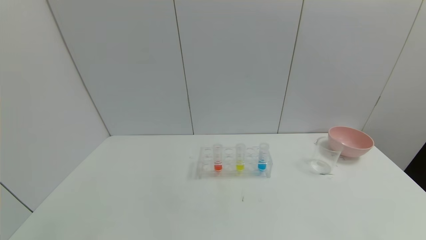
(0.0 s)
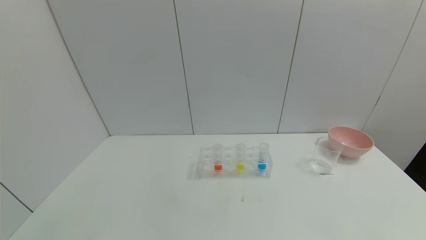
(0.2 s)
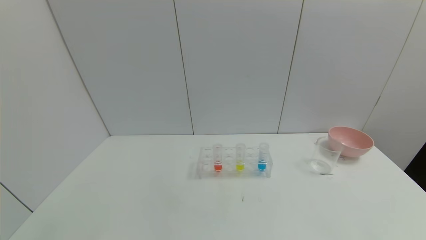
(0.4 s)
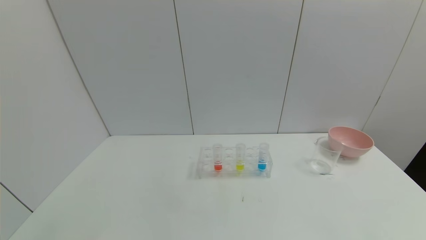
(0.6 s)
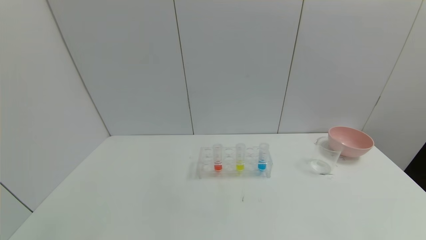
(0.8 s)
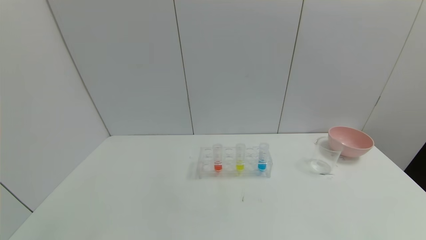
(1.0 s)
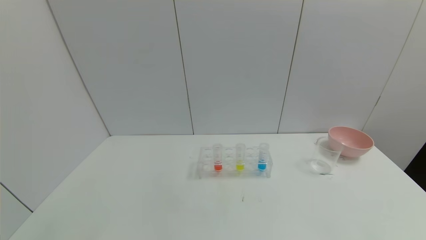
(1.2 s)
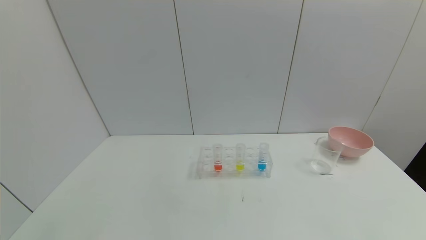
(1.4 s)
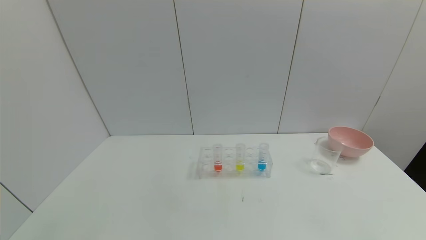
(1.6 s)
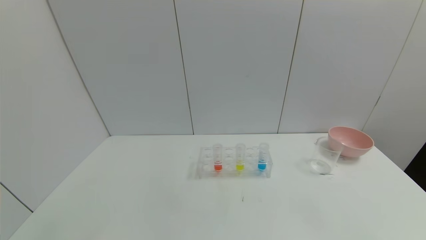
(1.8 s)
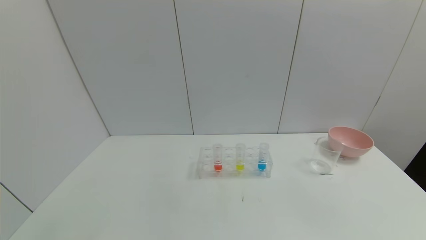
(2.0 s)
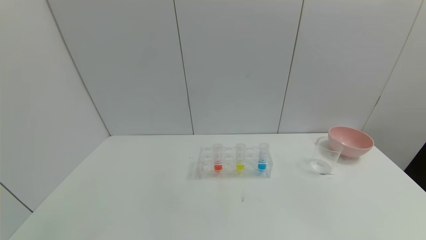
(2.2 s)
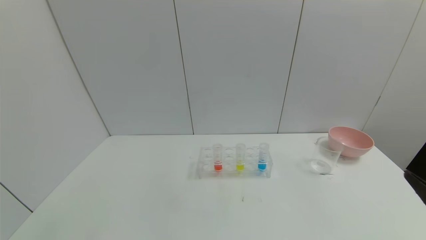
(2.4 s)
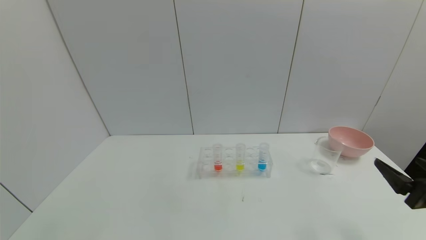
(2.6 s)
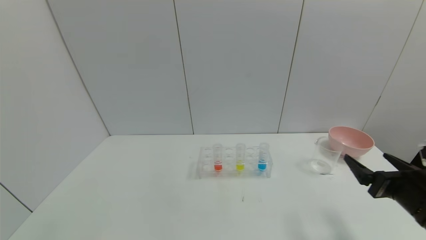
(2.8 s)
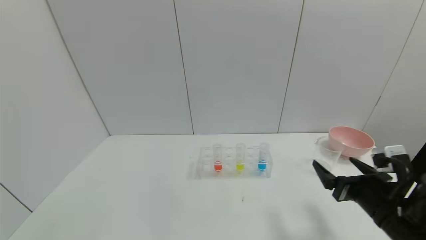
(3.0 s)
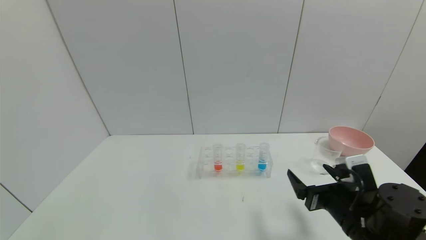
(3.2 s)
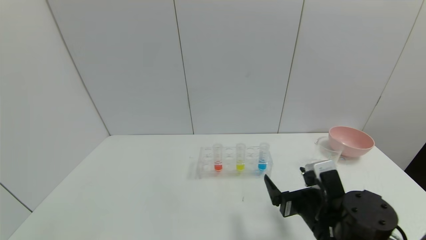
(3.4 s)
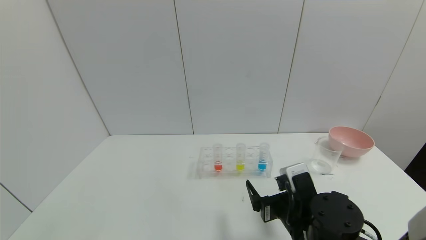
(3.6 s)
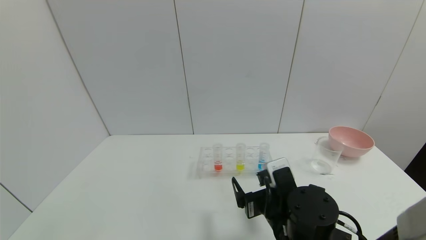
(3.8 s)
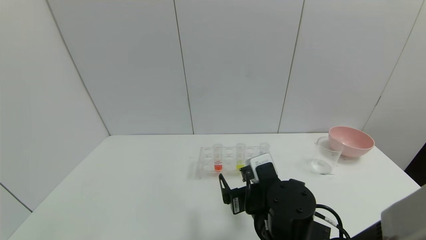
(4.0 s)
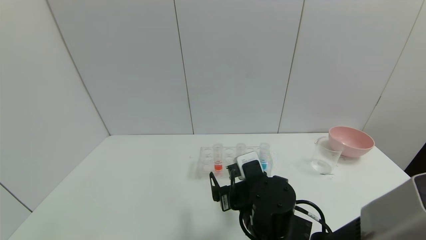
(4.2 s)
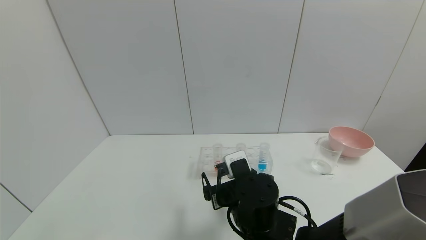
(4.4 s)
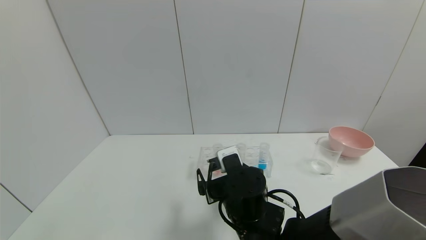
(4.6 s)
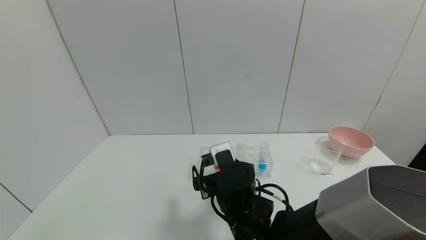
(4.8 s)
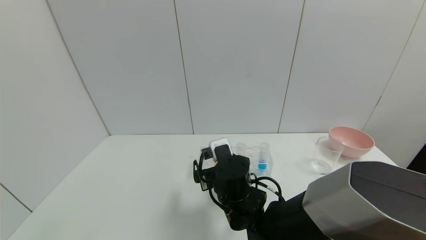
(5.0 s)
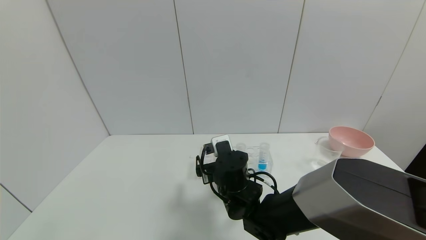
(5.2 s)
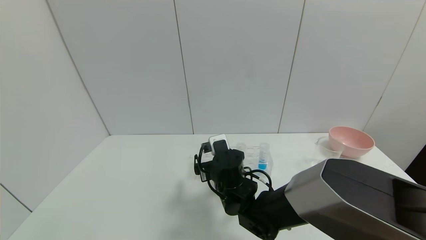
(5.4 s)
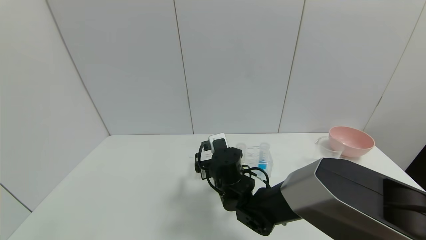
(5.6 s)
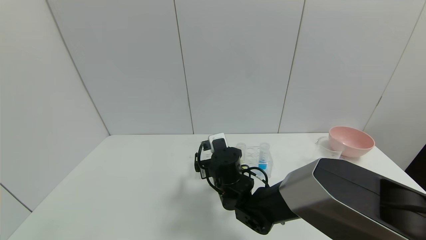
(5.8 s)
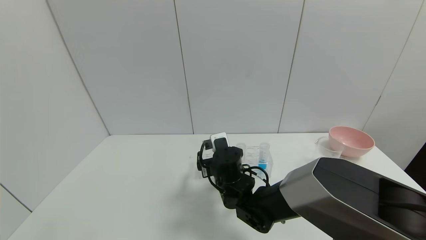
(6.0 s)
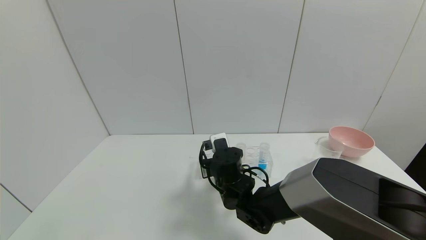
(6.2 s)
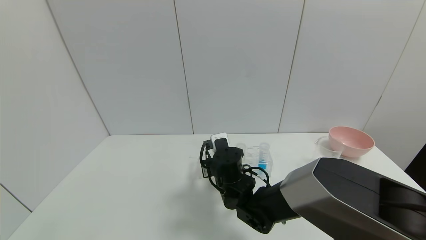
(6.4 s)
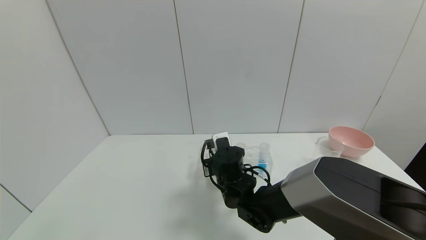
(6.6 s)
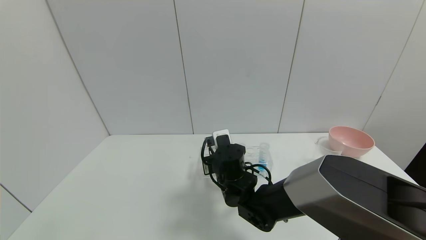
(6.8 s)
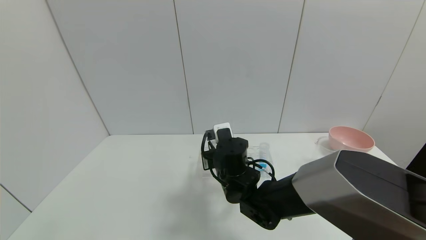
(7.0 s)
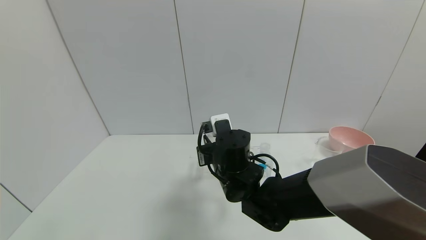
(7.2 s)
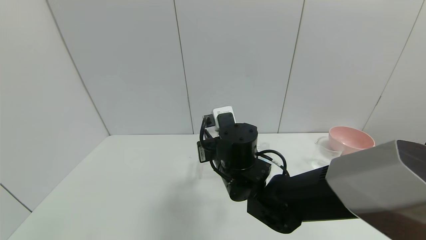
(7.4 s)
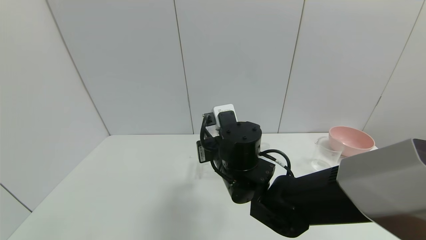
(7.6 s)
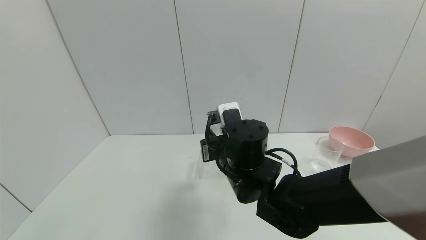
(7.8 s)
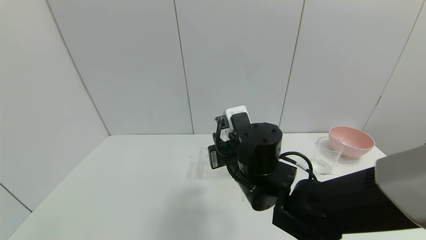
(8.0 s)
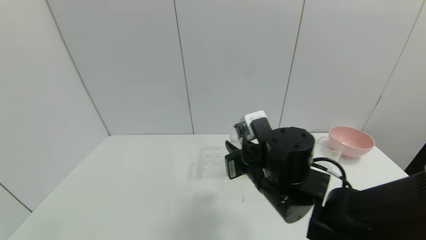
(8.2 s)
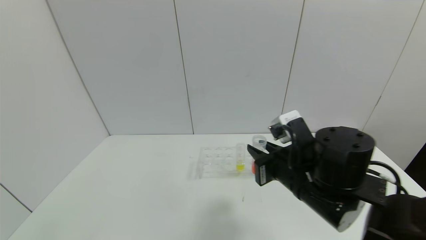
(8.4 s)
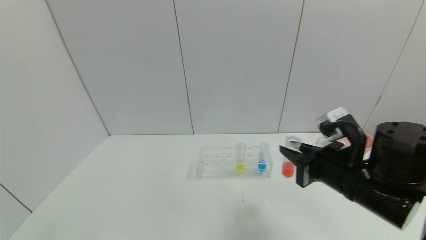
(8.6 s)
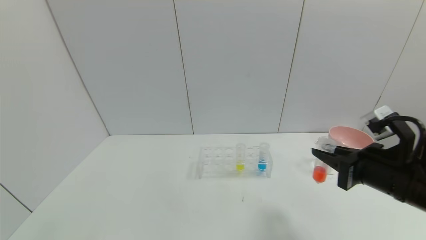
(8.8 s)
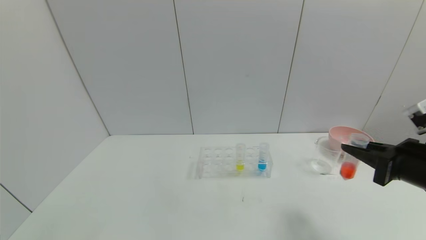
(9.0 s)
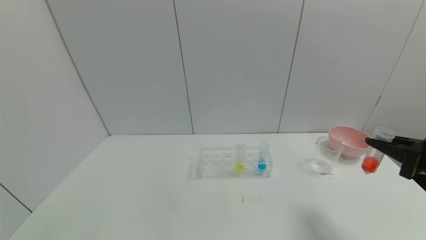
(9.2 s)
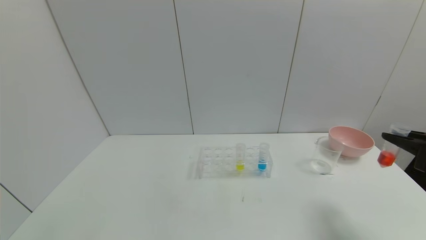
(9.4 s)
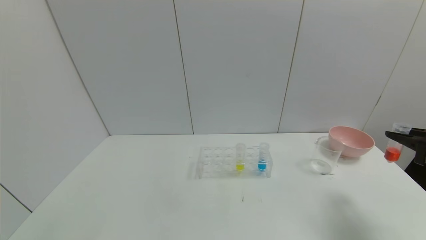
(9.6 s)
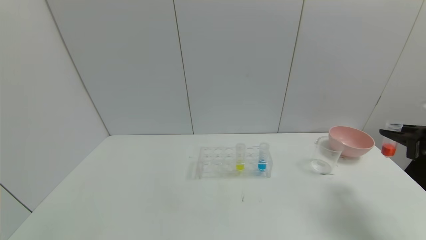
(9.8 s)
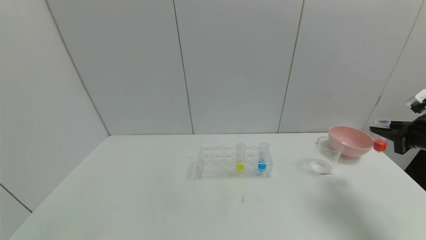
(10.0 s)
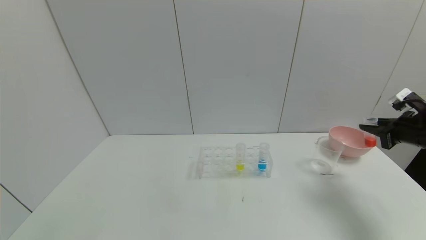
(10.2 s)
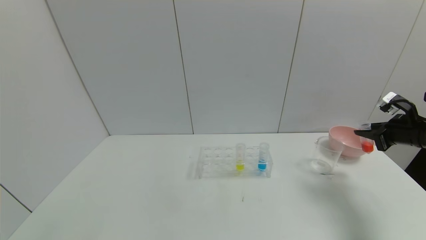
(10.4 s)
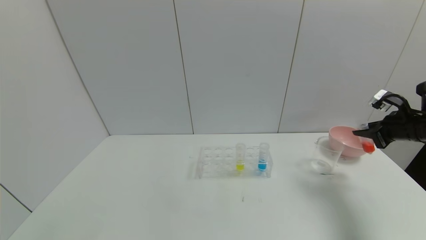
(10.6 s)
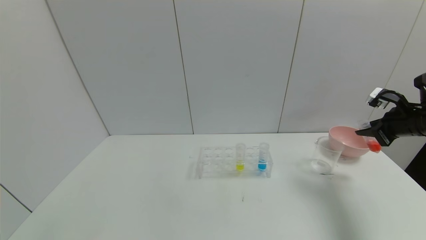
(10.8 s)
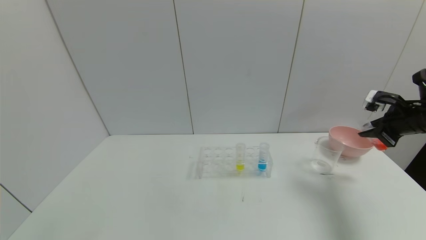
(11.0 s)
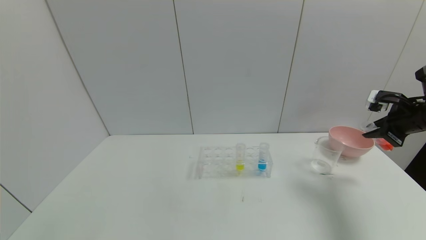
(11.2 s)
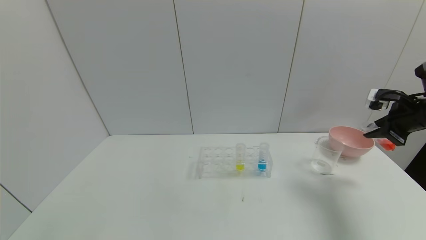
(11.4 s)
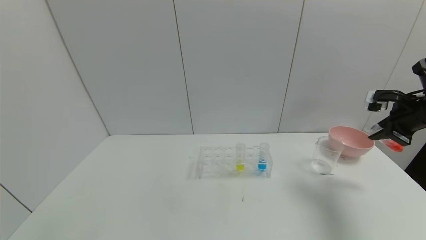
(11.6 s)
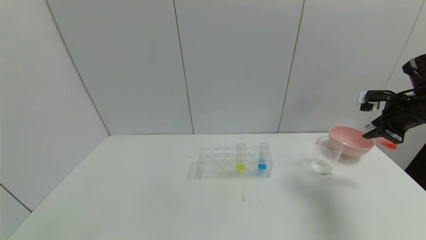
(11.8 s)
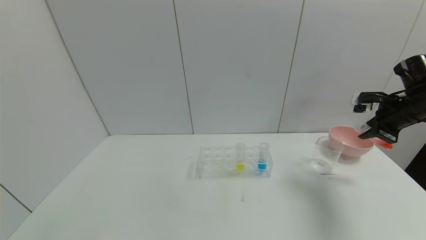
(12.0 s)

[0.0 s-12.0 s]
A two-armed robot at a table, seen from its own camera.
Task of the whole recording: pick up the test tube with red pigment and the test tube with blue pigment by grippers and pour them into the container.
Step, 0.0 to 8.6 s: Pick up the test tube containing the red reagent with right gripper.
1.6 to 3.0 s: The right gripper travels forward by some 25 cm.
3.0 to 4.4 s: The right gripper moves to the left, approximately 25 cm.
4.4 to 6.0 s: The right gripper travels forward by some 10 cm.
6.0 to 7.6 s: The right gripper moves upward, roughly 10 cm, and closes its fingers.
7.6 to 9.0 s: The right gripper moves to the right, approximately 30 cm.
9.0 to 10.4 s: The right gripper heads forward and to the right, covering approximately 20 cm.
10.4 to 12.0 s: The right gripper goes about 5 cm upward.

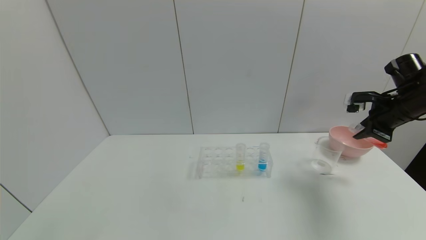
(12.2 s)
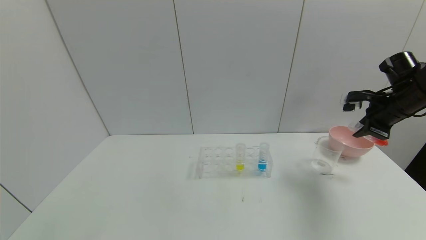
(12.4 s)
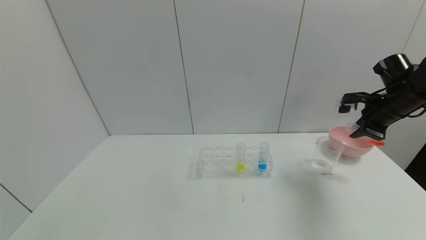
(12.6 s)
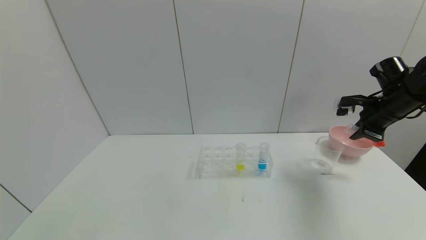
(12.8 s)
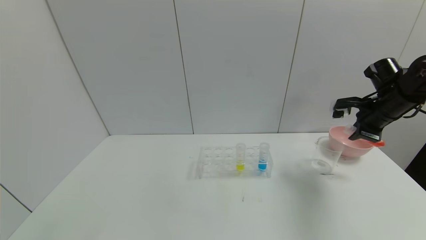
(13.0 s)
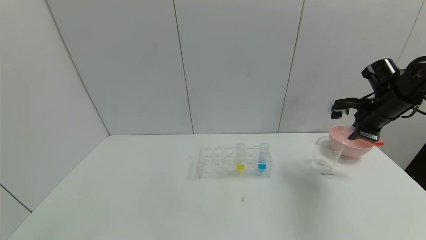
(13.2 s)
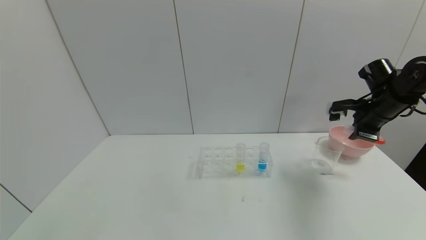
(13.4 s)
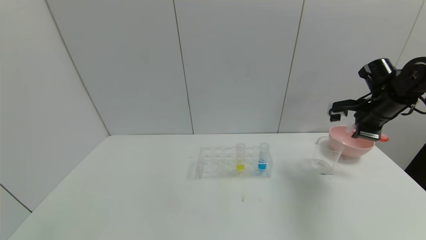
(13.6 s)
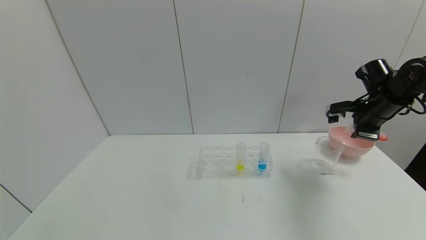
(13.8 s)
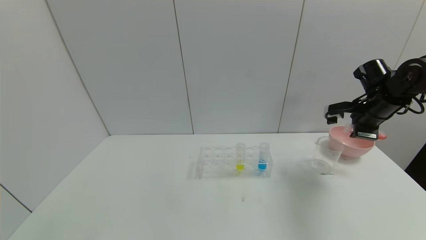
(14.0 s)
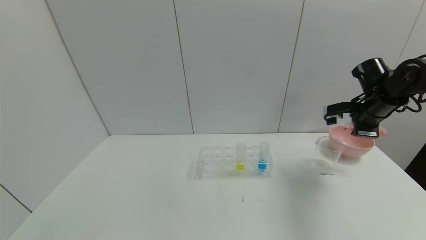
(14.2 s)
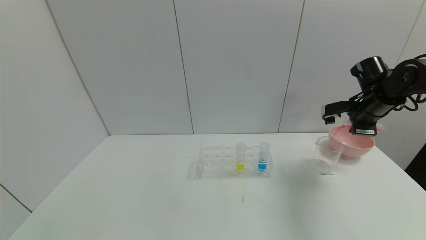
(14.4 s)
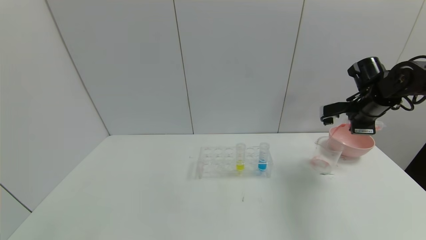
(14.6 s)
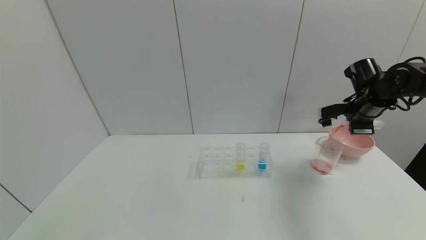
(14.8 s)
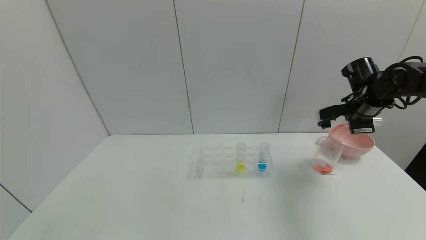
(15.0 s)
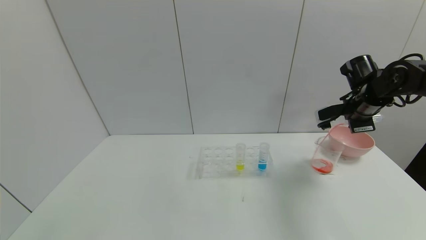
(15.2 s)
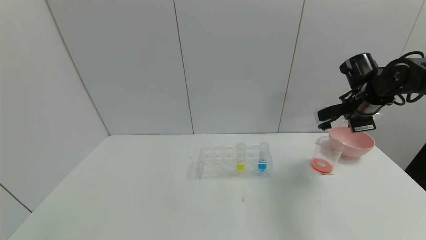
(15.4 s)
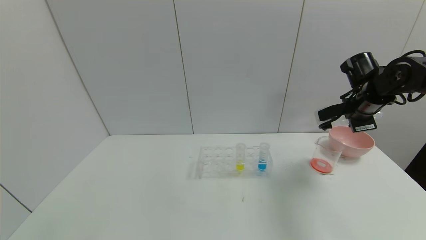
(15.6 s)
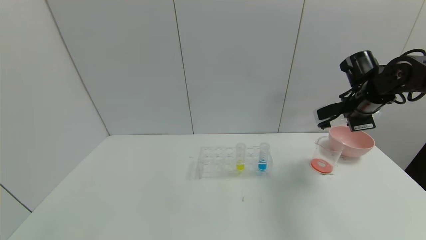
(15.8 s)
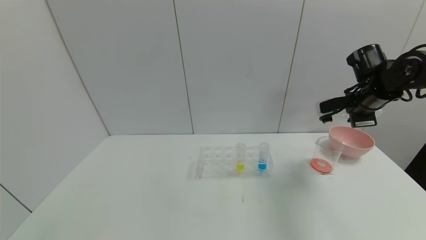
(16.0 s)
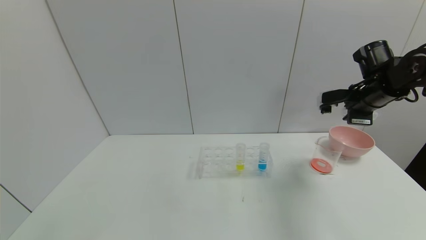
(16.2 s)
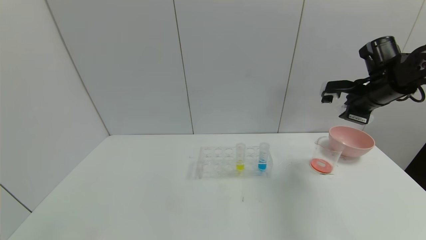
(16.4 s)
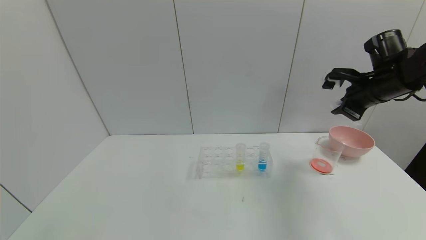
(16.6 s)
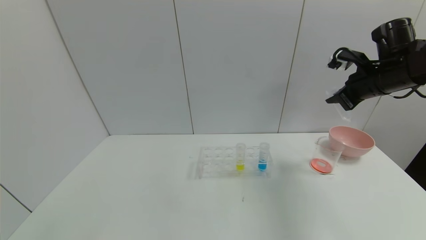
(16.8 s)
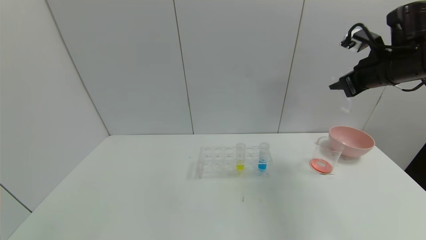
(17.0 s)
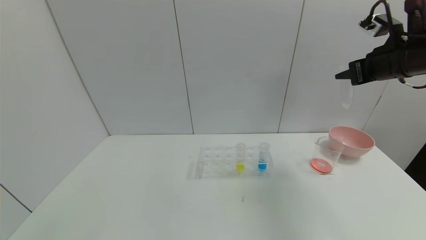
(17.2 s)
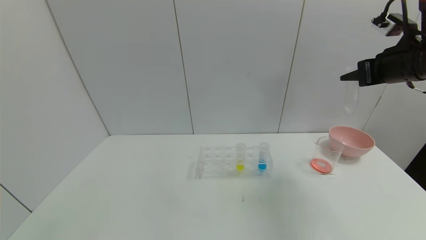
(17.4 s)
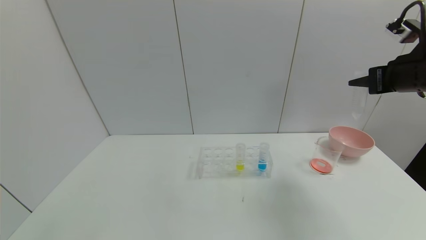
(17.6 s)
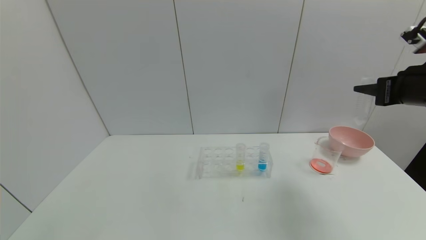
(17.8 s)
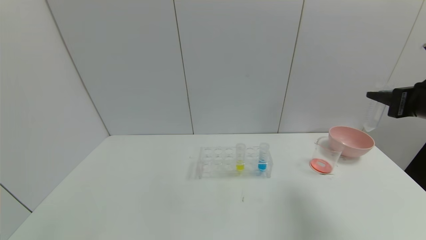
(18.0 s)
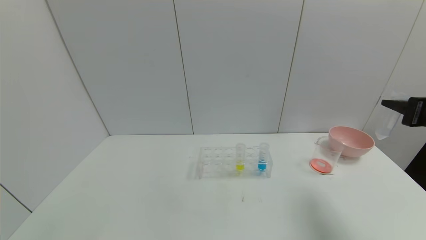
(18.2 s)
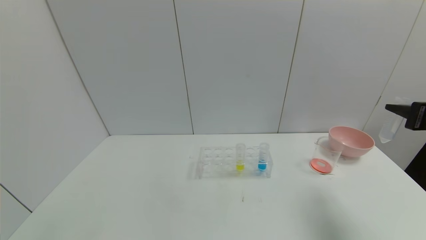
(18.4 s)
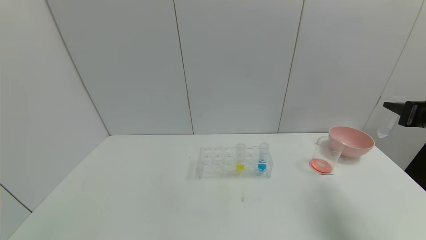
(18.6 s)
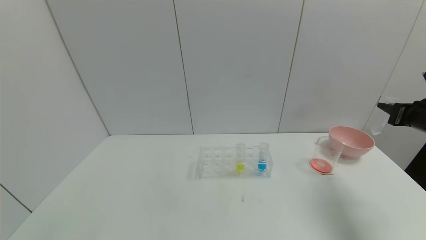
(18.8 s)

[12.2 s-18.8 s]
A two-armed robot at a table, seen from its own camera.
Task of the whole recording: pick up the test tube with red pigment and the test tube with blue pigment by grippers and pour them into the container.
Step, 12.2 to 18.0 s: Pour the red reagent into the graduated cylinder with right gripper.
12.2 to 13.8 s: There are only small adjustments of the grippers.
15.4 to 17.2 s: The right gripper is displaced upward and backward by approximately 10 cm.
17.2 to 18.8 s: The right gripper goes approximately 15 cm downward and to the right.
